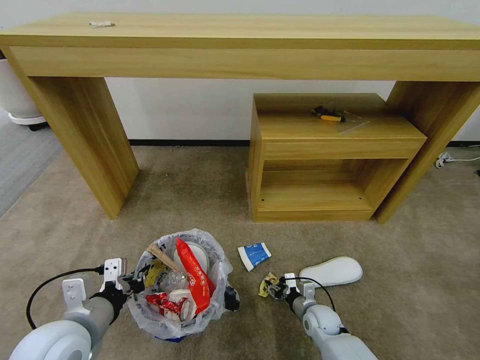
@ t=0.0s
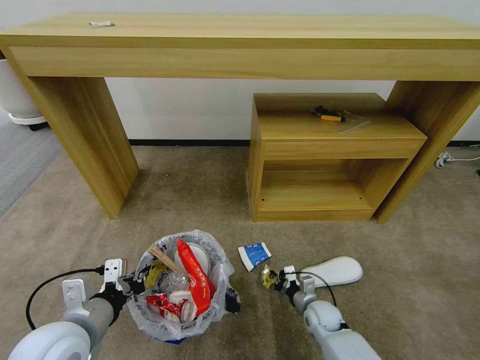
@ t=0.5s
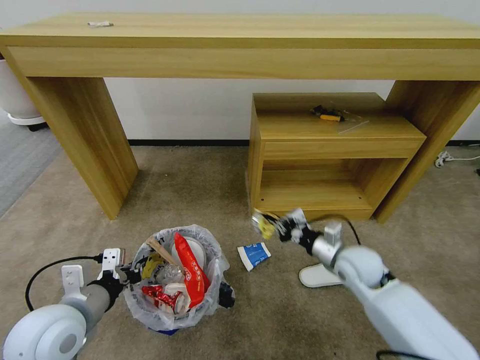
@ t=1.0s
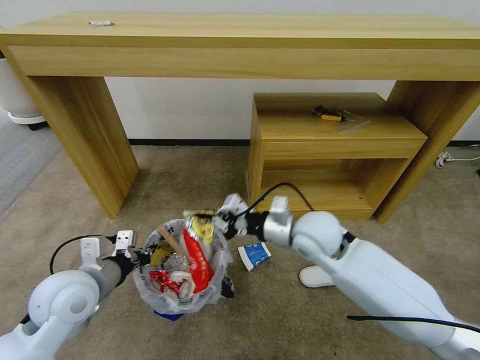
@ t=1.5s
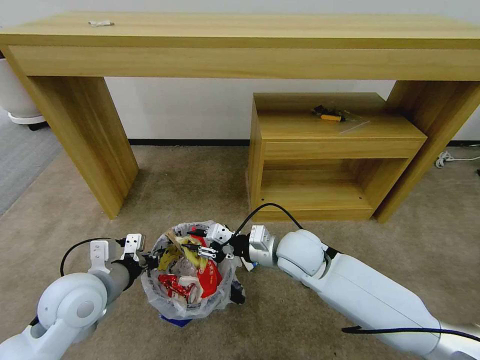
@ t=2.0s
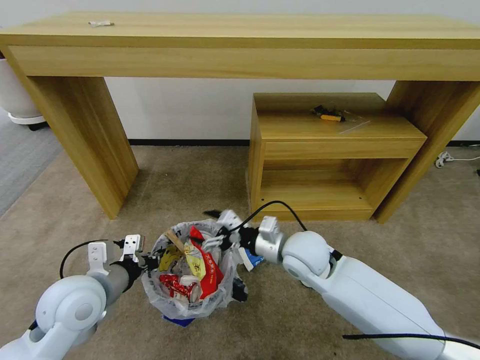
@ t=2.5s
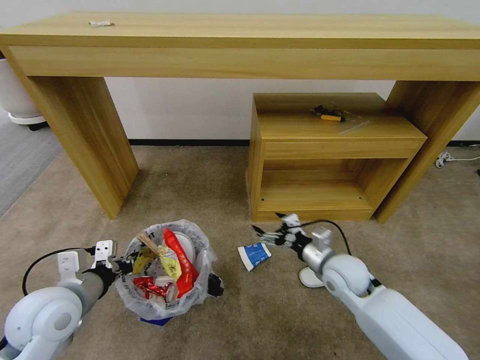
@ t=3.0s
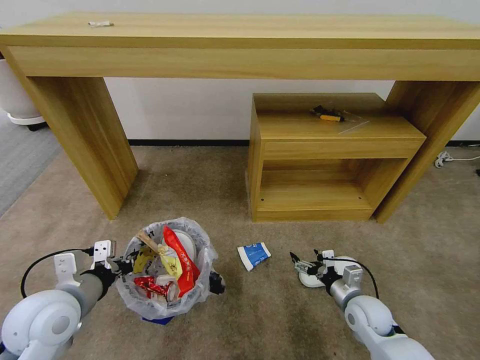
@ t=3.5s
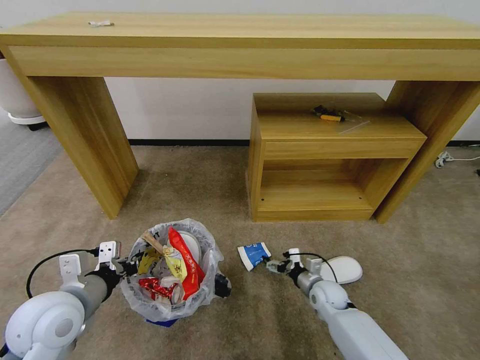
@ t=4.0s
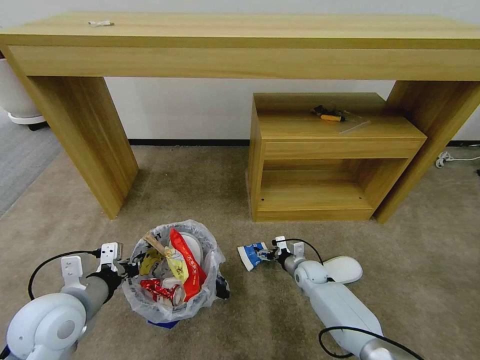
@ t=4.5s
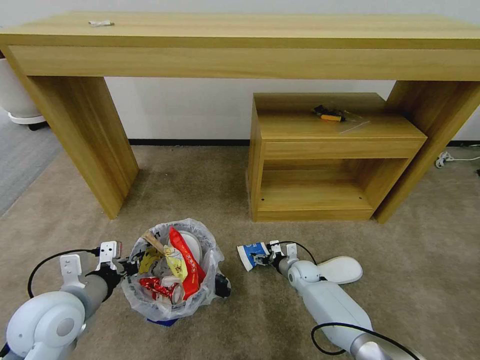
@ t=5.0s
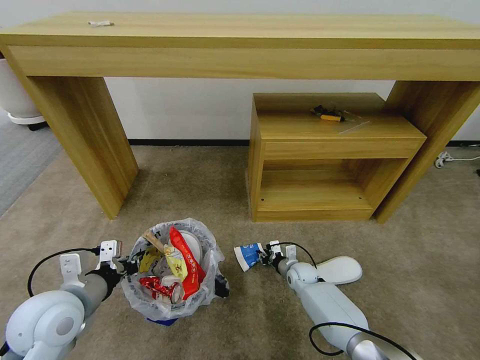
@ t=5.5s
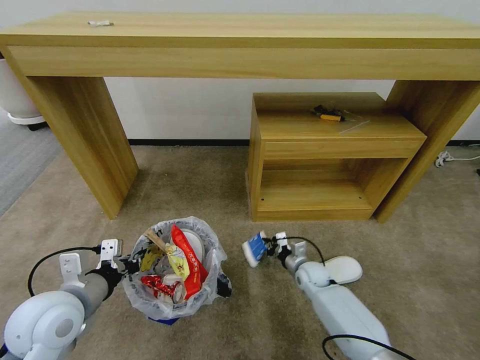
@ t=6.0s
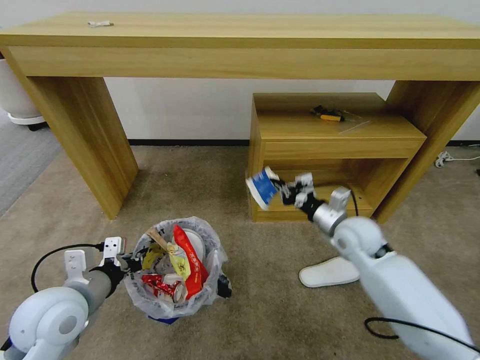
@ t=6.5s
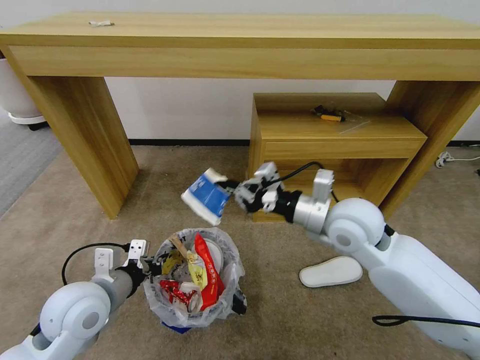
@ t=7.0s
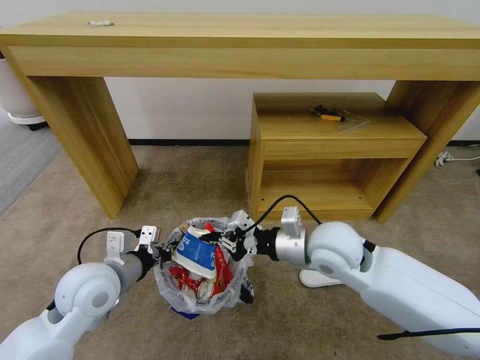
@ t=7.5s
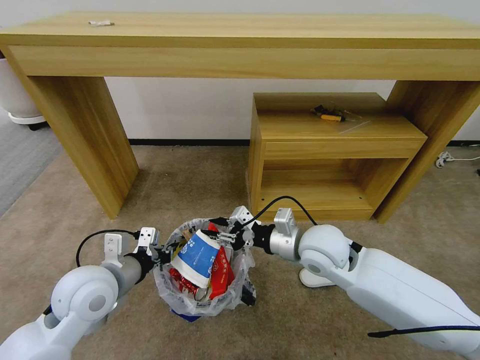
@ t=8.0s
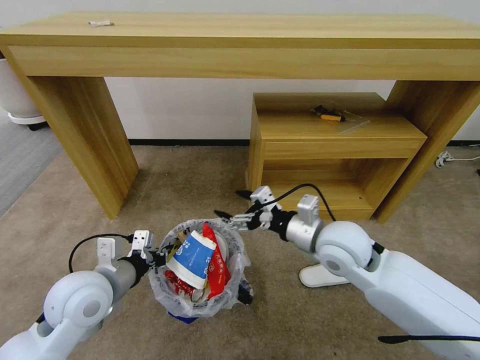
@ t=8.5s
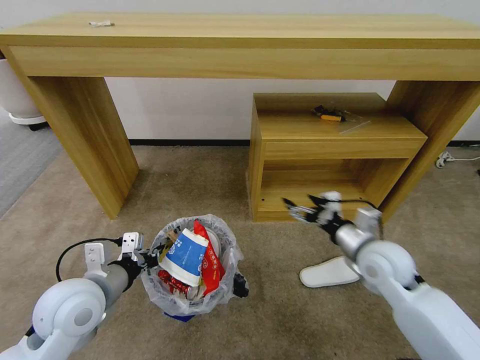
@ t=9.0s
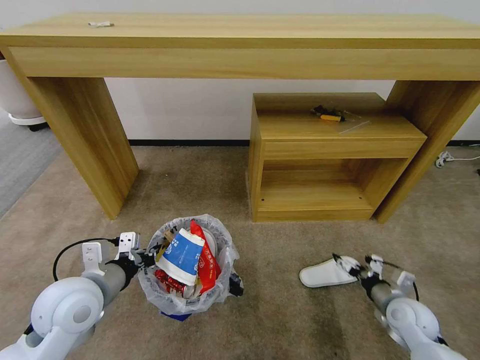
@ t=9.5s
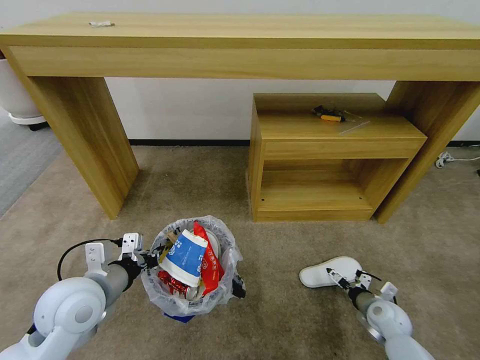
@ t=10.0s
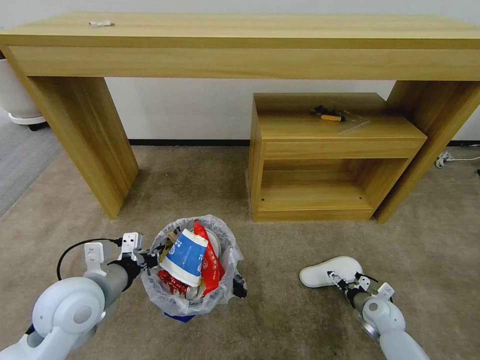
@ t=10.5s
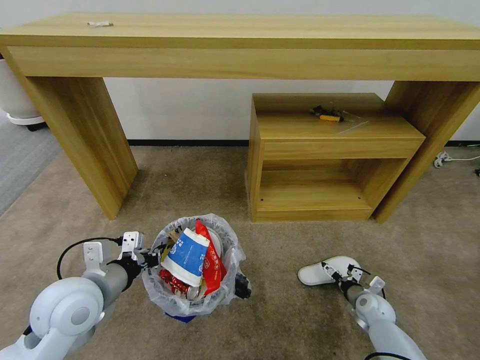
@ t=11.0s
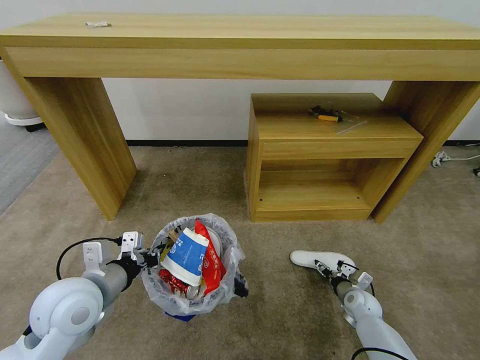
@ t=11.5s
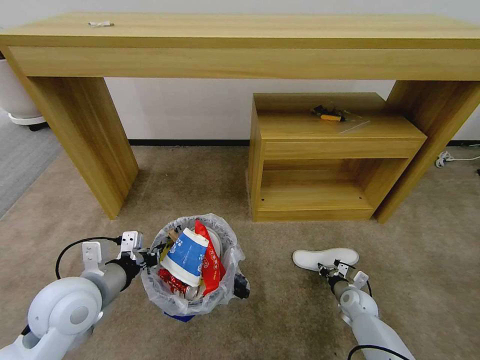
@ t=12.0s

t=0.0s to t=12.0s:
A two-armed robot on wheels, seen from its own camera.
Task of the whole recording: Pick up the trash bin and place the garbage on the floor into it.
t=0.0s to t=2.0s: The left gripper heads forward, covering about 10 cm. Meanwhile the right gripper moves upward, roughly 30 cm.
t=2.0s to t=4.0s: The right gripper moves downward and to the right, approximately 30 cm, and opens up.
t=4.0s to t=6.0s: The right gripper shifts some 5 cm forward, and closes up.
t=6.0s to t=8.0s: The right gripper moves upward, some 30 cm. The left gripper changes place by about 5 cm.
t=8.0s to t=10.0s: The right gripper goes roughly 35 cm downward and to the right, and opens its fingers.
t=10.0s to t=12.0s: The right gripper shifts some 10 cm downward and forward, and closes its fingers.

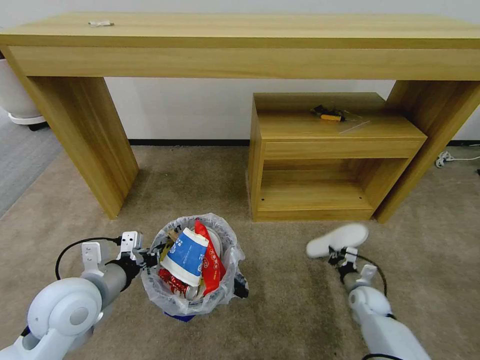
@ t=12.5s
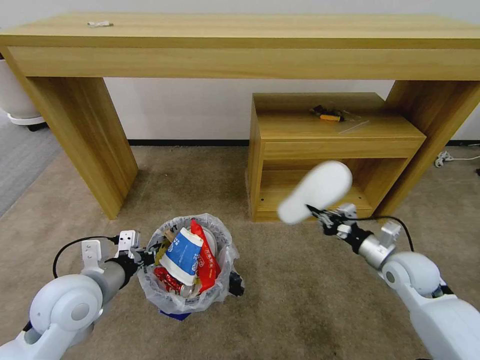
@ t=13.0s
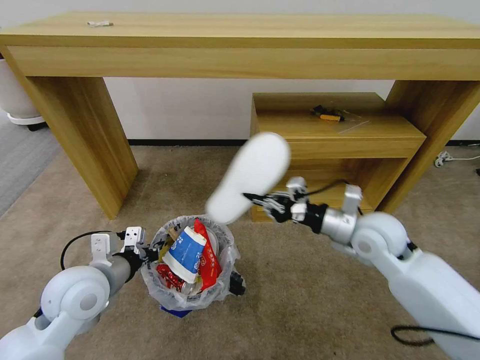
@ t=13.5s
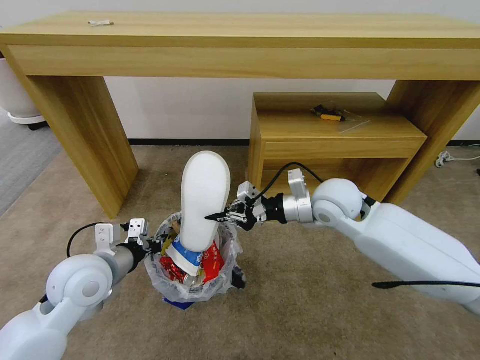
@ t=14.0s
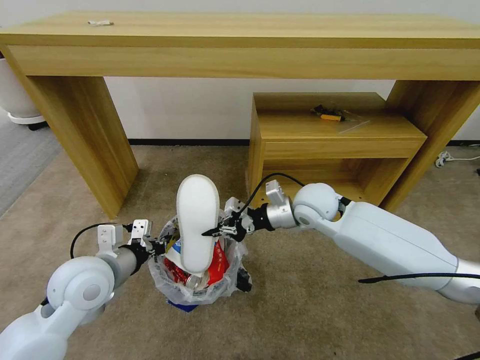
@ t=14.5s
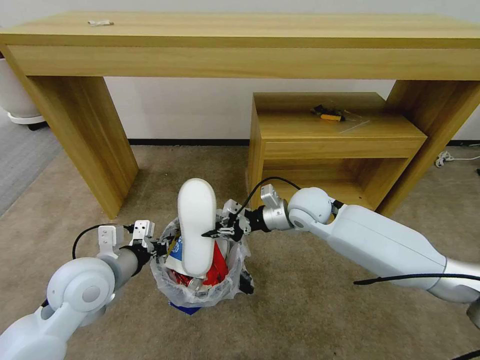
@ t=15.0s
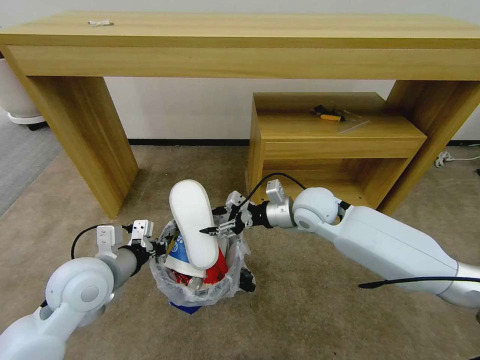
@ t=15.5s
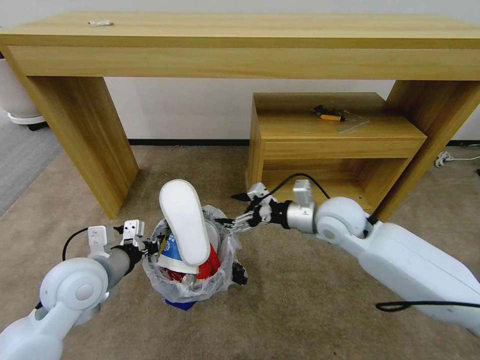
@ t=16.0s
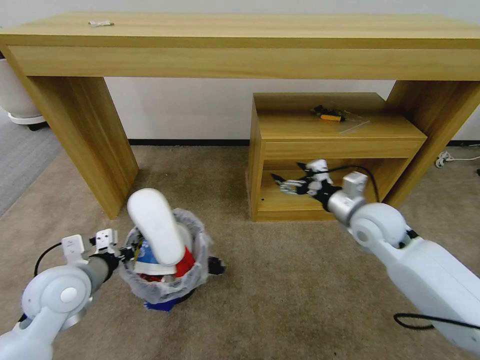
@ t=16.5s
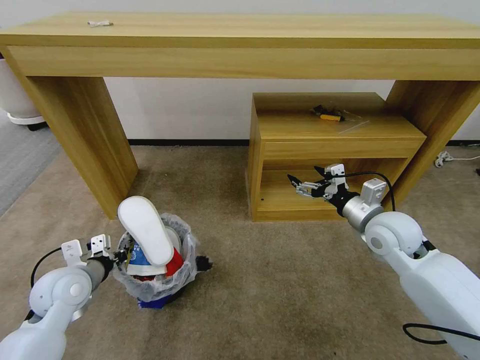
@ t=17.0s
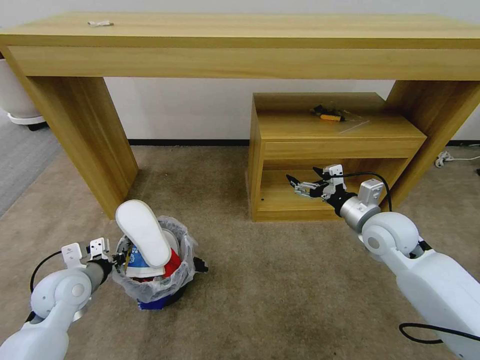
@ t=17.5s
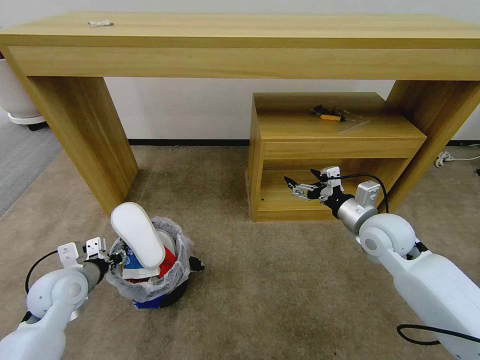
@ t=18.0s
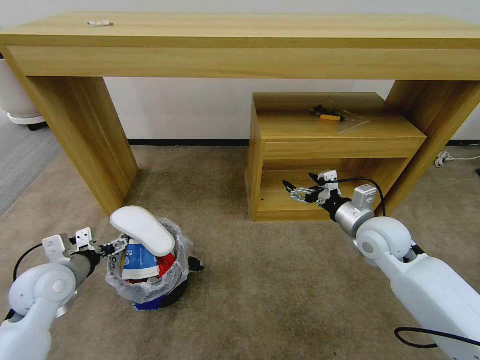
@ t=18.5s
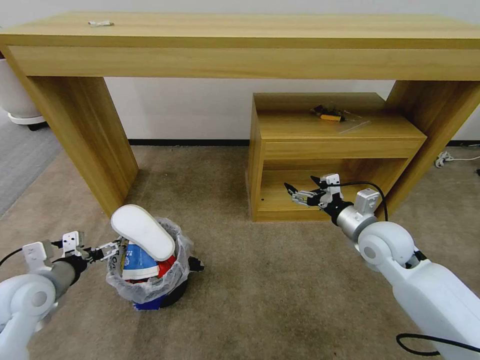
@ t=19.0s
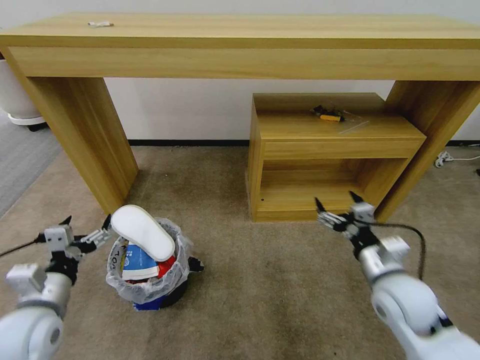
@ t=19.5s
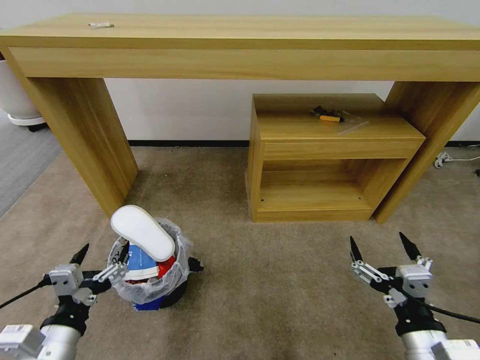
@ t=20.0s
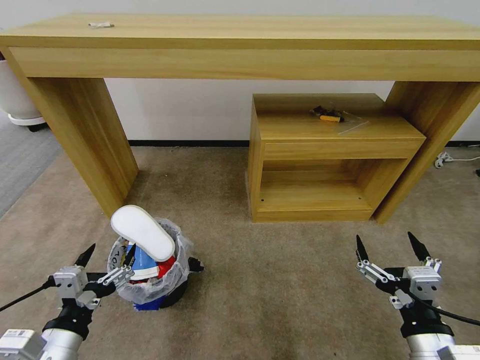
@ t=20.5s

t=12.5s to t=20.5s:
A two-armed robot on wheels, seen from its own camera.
Task of the whole recording: Pick up the trash bin and place the garbage on the floor into it.
t=12.5s to t=14.5s: The right gripper heads upward and to the left, covering approximately 40 cm.
t=14.5s to t=16.5s: The right gripper travels to the right by about 10 cm, and opens.
t=16.5s to t=18.5s: The left gripper moves to the left, some 5 cm, and opens.
t=18.5s to t=20.5s: The left gripper shifts some 20 cm backward and to the right. Meanwhile the right gripper shifts approximately 30 cm backward.
